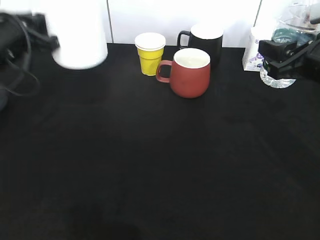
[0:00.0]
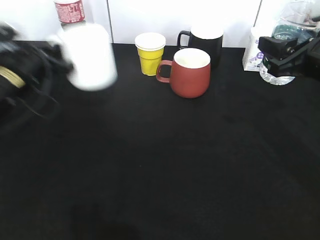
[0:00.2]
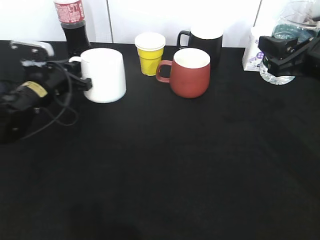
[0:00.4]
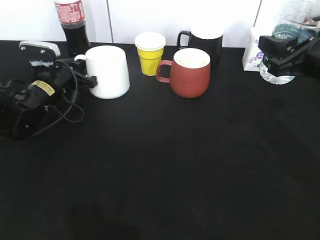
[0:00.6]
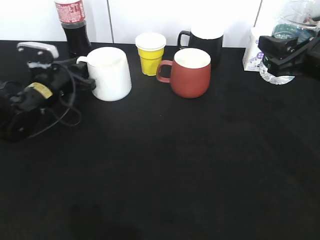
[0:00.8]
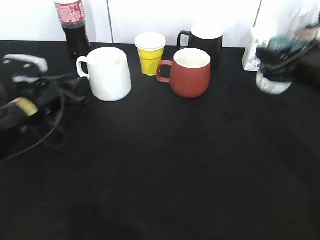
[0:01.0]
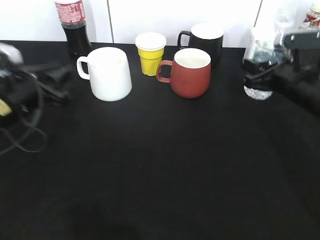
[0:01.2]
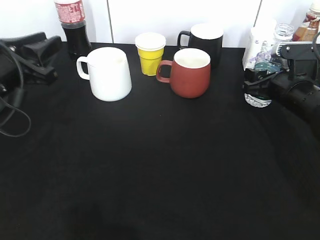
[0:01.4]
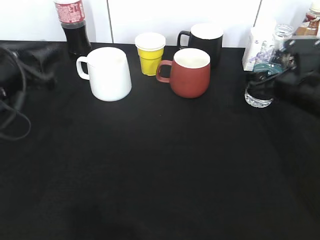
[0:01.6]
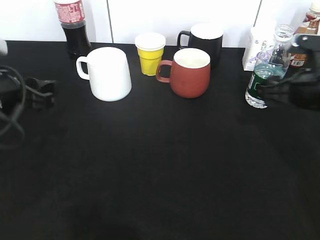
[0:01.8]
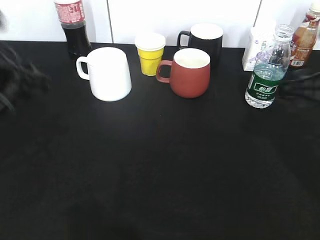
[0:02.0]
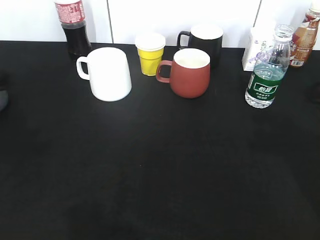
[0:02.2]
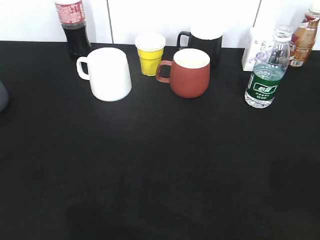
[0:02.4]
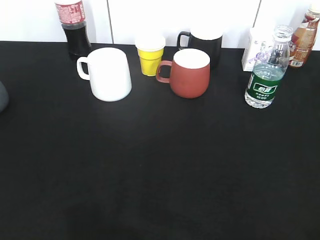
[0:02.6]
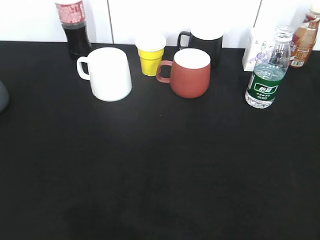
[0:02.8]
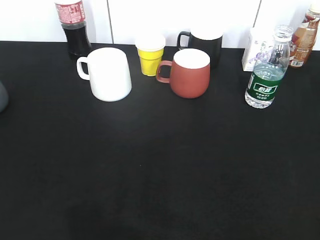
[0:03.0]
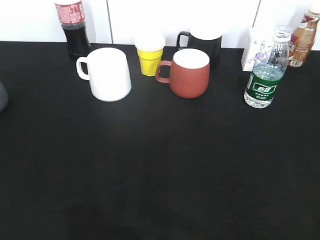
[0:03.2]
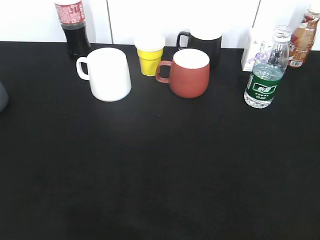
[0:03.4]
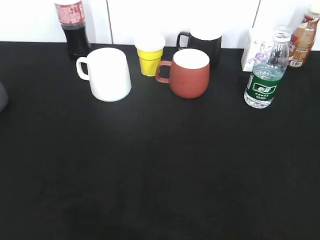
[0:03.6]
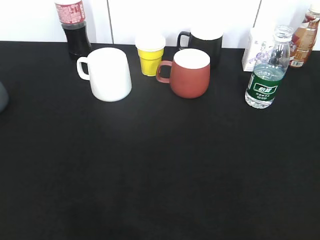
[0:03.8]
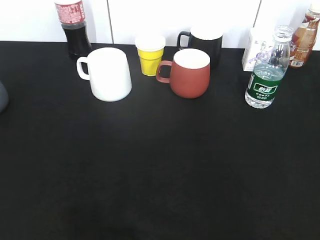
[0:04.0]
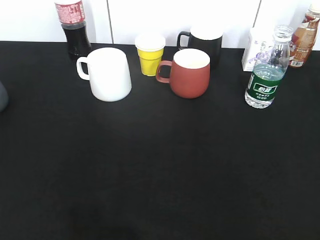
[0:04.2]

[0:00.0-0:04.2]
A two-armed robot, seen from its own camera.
Step, 0:00.0 to 0:00.8: Place the white cup on the table with left gripper.
Step, 0:01.2 to 0:01.6: Place the water bottle on the table with right gripper.
0:00.0 to 0:01.4: The right gripper heads downward and forward, covering about 10 cm. Meanwhile the left gripper heads backward, covering some 5 cm, and opens.
0:01.4 to 0:02.8: The left gripper heads backward, covering some 25 cm; the right gripper moves backward and upward, approximately 40 cm, and opens.
